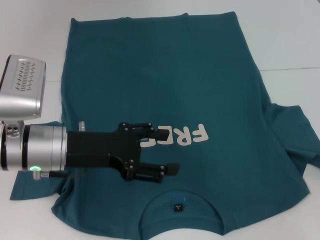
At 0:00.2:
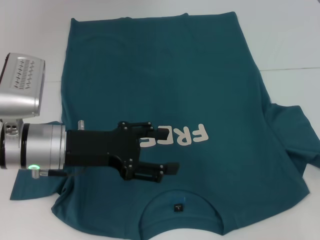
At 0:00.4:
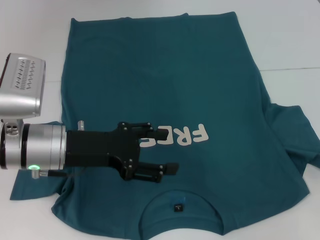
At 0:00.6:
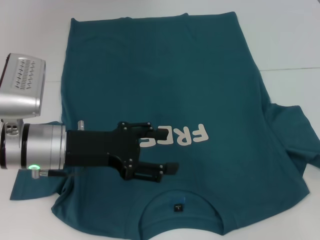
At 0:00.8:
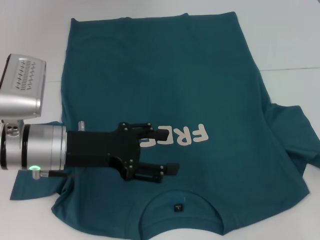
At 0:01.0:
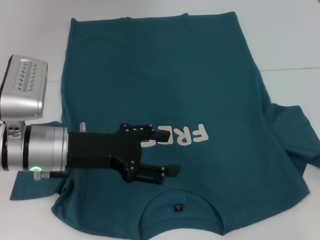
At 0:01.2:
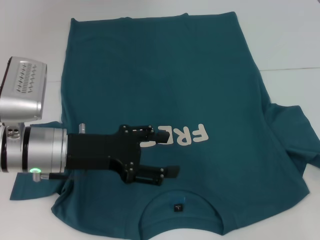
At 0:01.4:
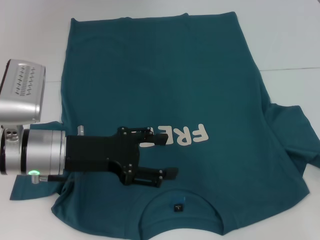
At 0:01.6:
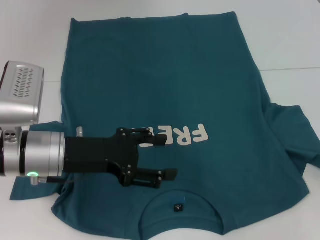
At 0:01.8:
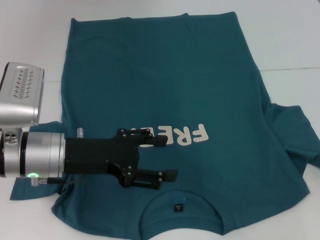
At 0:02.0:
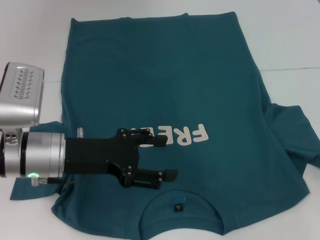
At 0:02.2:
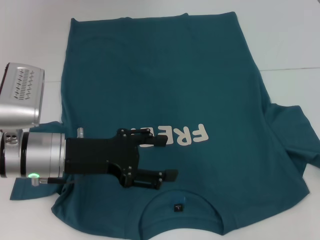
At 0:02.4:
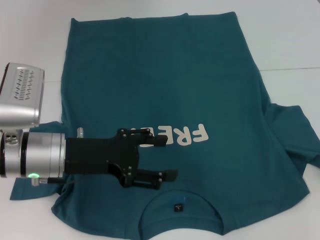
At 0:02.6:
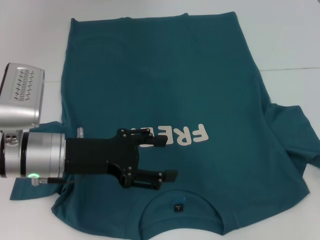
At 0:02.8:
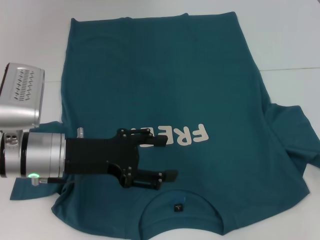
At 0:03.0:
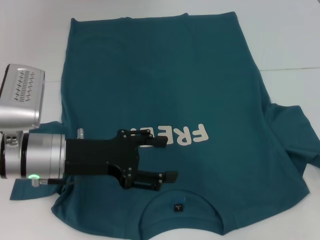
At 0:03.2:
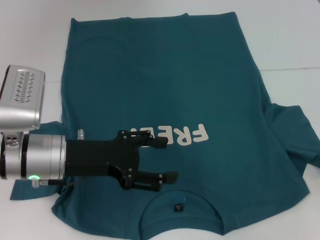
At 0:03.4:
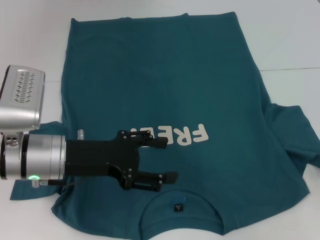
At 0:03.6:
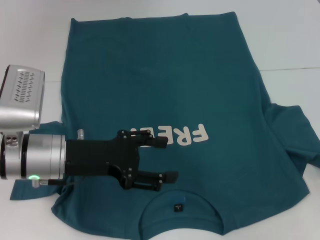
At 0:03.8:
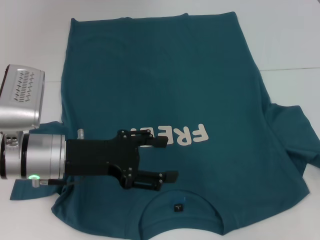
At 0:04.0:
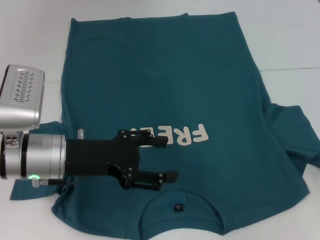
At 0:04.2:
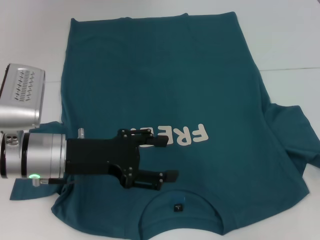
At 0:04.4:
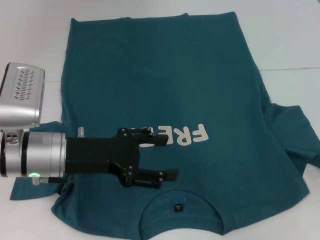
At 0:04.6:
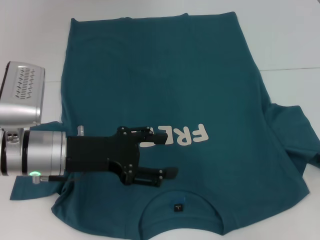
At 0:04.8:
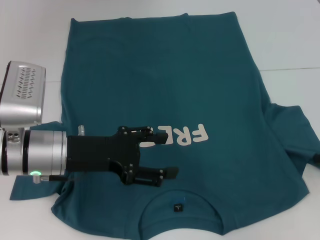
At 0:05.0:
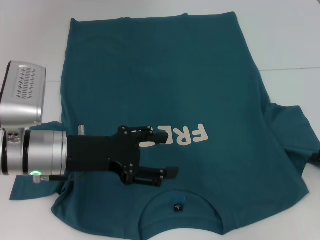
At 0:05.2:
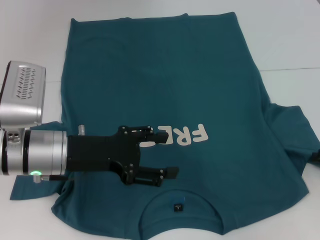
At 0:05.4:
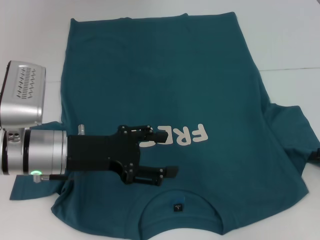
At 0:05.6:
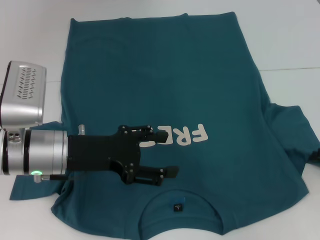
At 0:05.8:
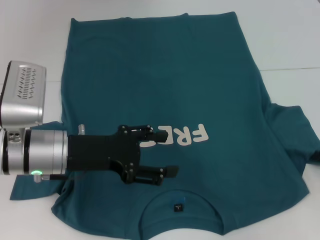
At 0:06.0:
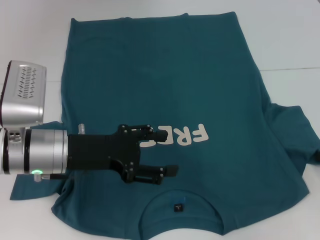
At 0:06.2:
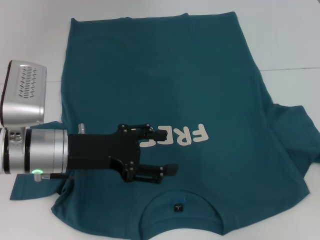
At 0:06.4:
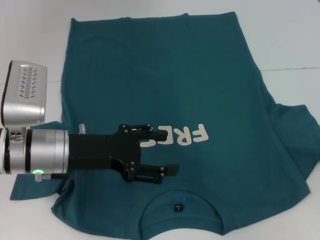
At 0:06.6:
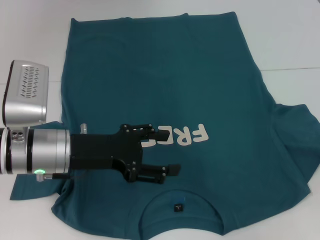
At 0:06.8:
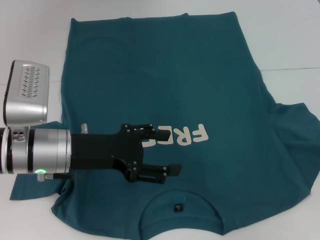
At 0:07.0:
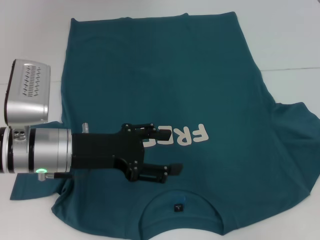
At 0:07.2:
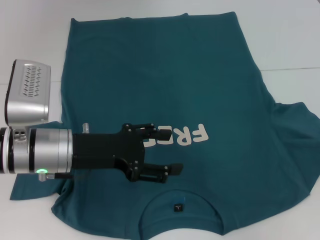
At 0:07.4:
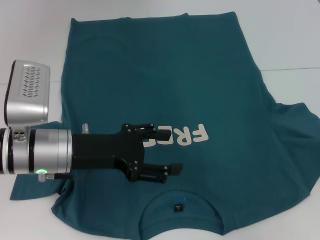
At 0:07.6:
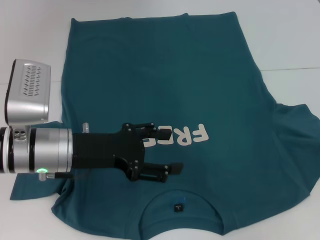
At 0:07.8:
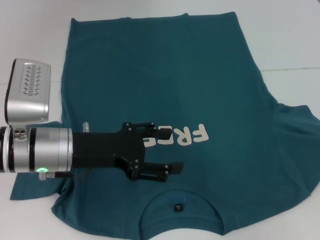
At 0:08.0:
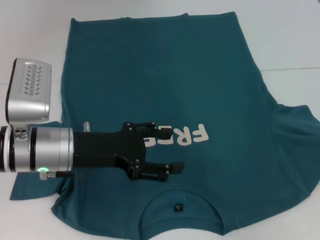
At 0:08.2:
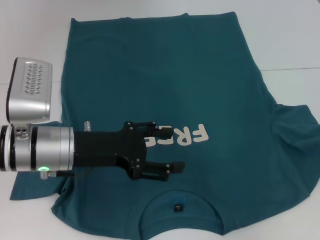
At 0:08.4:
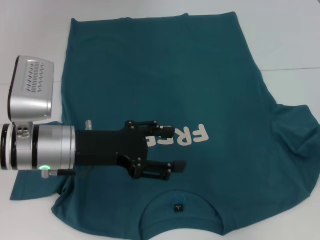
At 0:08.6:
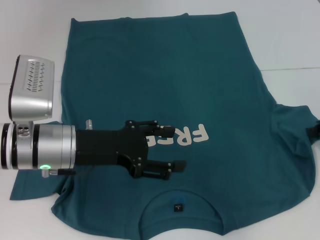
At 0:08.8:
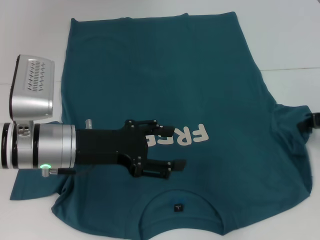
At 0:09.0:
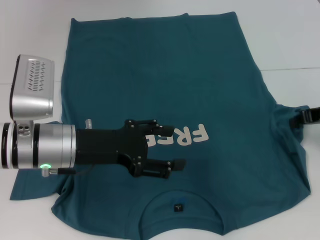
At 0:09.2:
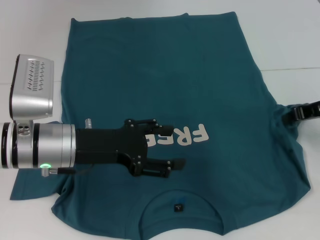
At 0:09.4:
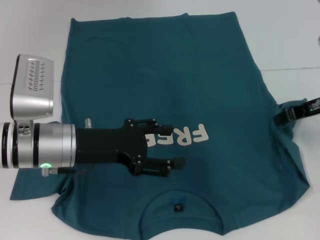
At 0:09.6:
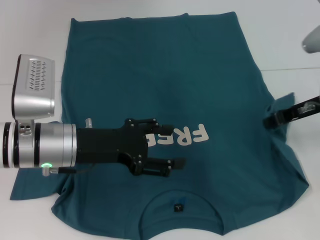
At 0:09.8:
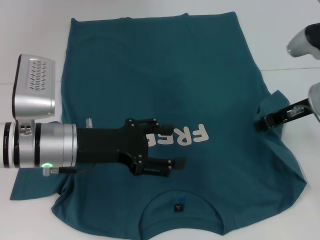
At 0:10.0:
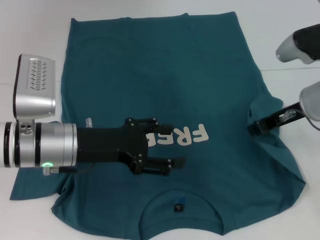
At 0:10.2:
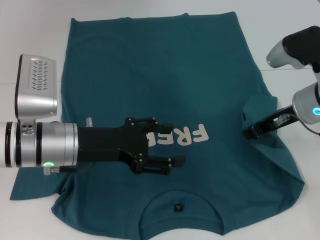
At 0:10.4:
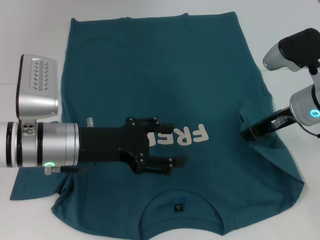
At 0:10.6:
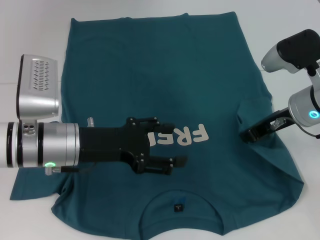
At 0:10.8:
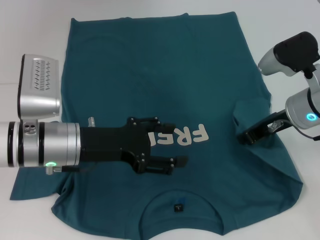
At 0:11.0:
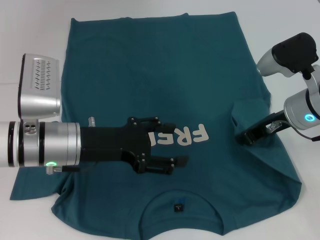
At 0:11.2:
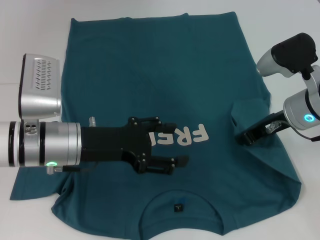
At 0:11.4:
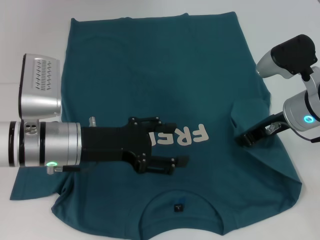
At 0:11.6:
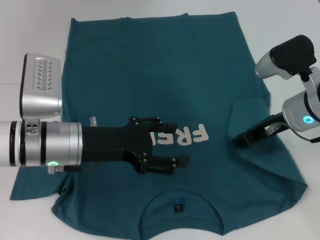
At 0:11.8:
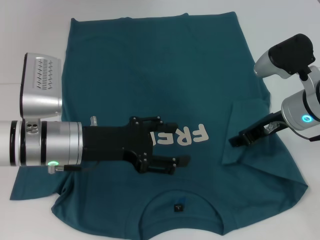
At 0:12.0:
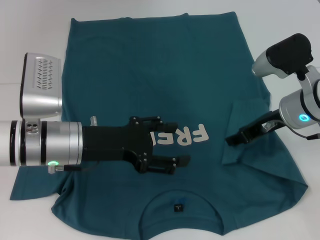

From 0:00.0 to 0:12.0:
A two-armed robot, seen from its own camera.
From 0:00.0 to 0:04.4: There are only small adjustments of the grippers.
From 0:04.4 to 0:06.0: The right gripper closes its fingers.
From 0:06.0 to 0:07.6: The right gripper closes up.
From 0:07.6 to 0:09.0: The right gripper shifts some 10 cm to the left and forward.
From 0:09.0 to 0:10.4: The right gripper goes about 10 cm to the left.
From 0:10.4 to 0:12.0: The grippers stay close to where they were, moving slightly.

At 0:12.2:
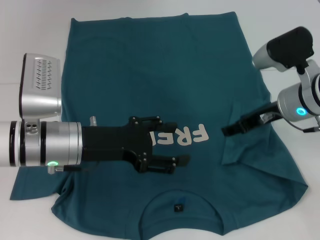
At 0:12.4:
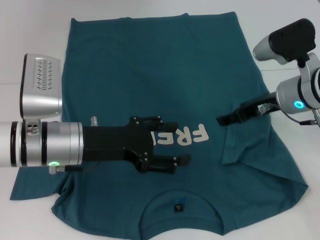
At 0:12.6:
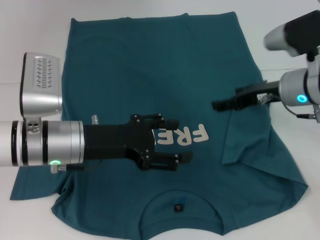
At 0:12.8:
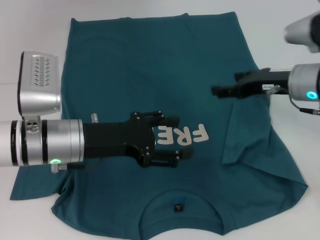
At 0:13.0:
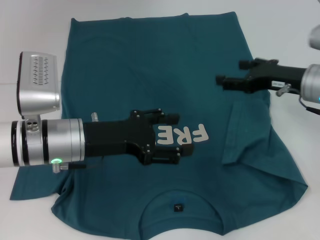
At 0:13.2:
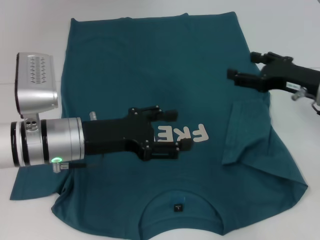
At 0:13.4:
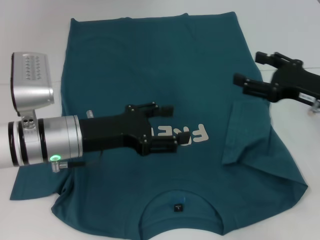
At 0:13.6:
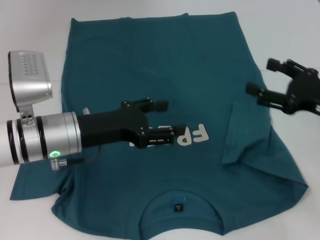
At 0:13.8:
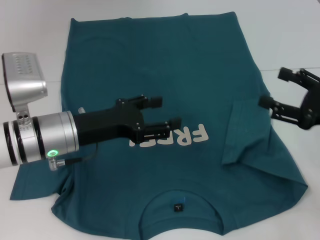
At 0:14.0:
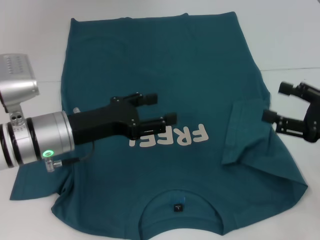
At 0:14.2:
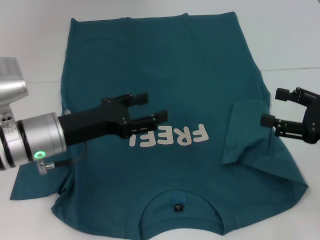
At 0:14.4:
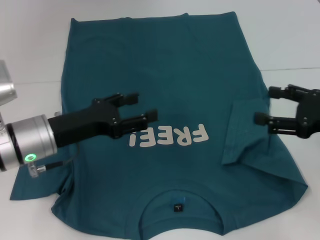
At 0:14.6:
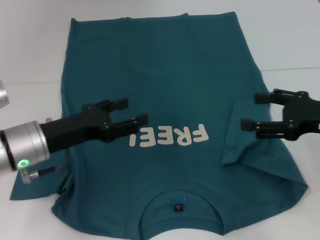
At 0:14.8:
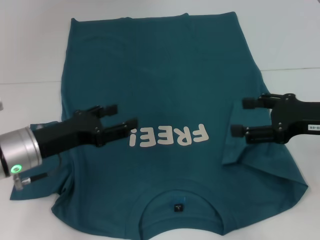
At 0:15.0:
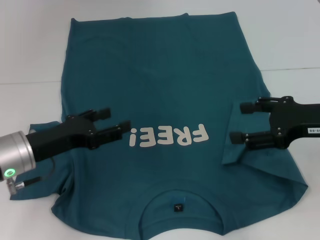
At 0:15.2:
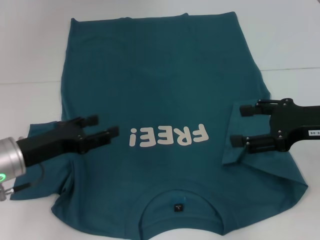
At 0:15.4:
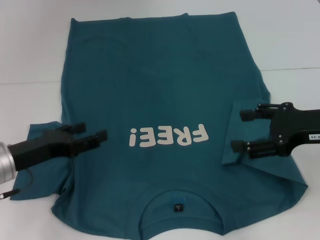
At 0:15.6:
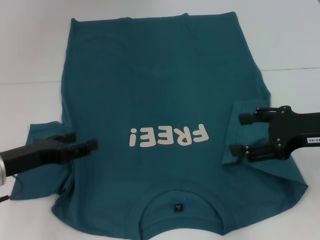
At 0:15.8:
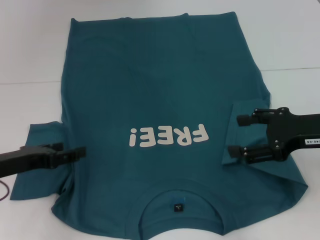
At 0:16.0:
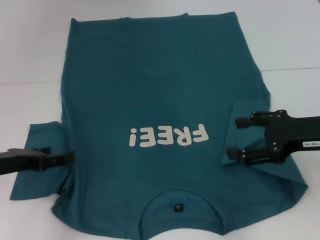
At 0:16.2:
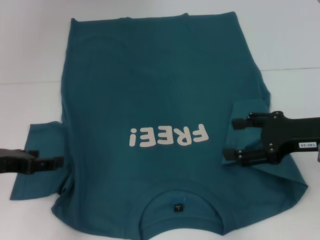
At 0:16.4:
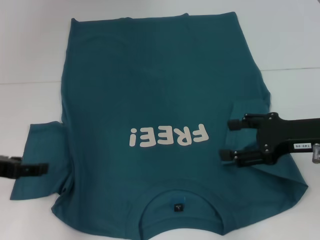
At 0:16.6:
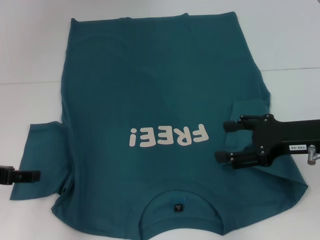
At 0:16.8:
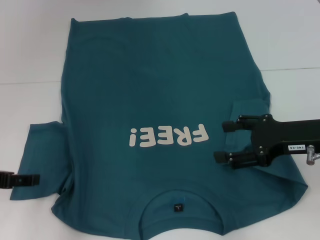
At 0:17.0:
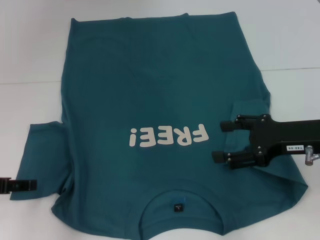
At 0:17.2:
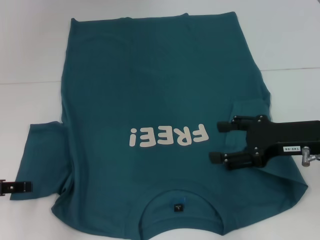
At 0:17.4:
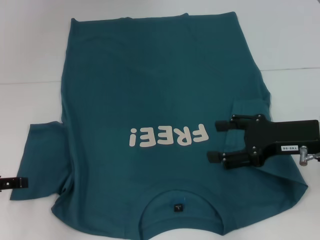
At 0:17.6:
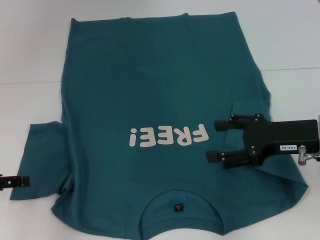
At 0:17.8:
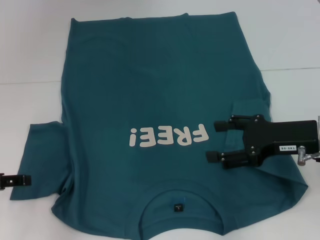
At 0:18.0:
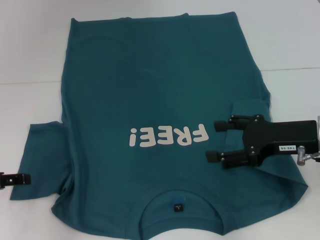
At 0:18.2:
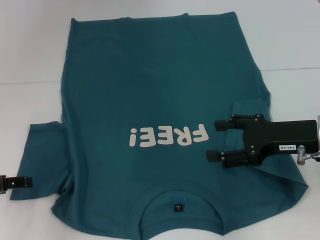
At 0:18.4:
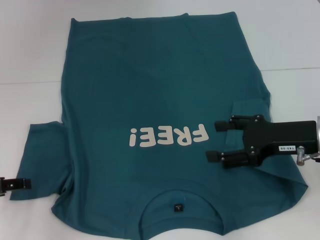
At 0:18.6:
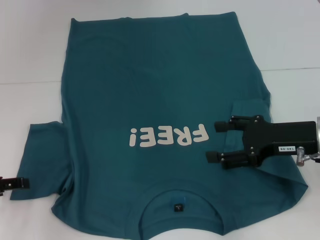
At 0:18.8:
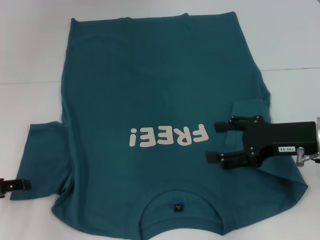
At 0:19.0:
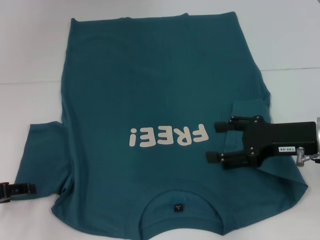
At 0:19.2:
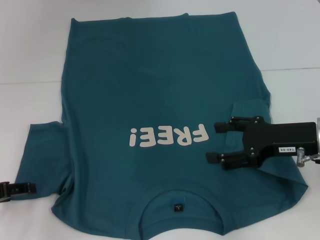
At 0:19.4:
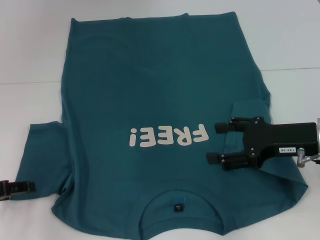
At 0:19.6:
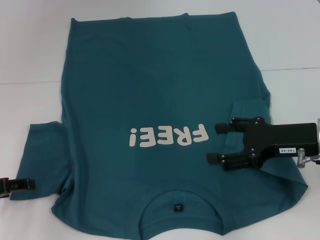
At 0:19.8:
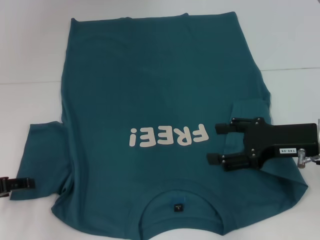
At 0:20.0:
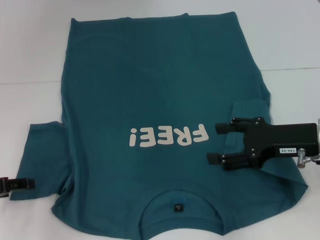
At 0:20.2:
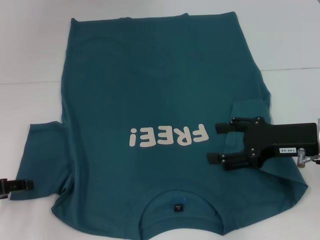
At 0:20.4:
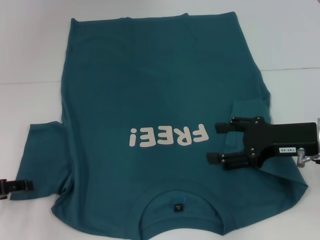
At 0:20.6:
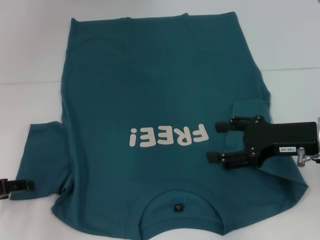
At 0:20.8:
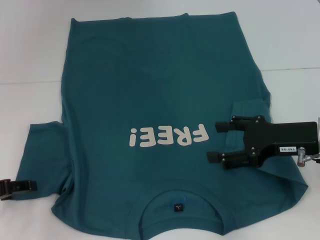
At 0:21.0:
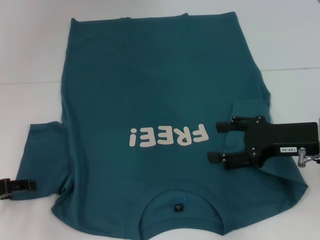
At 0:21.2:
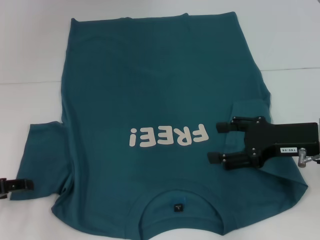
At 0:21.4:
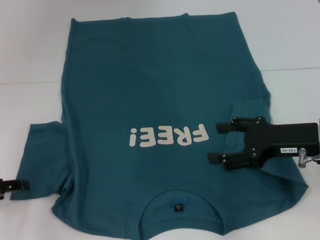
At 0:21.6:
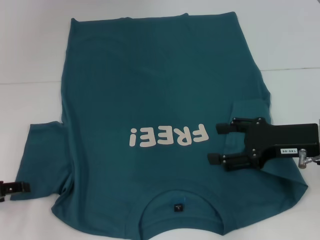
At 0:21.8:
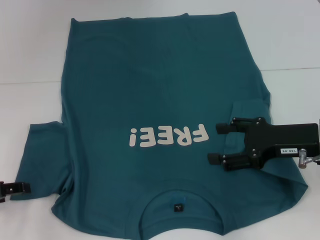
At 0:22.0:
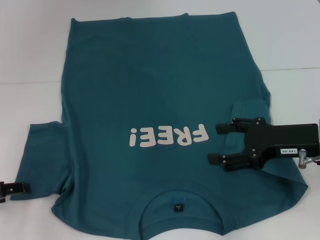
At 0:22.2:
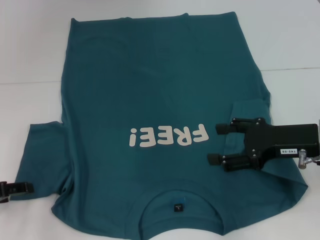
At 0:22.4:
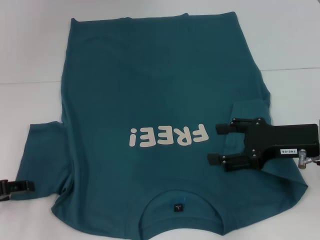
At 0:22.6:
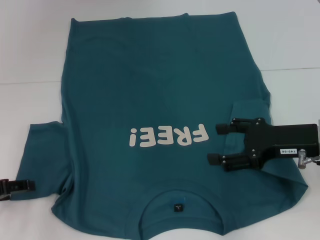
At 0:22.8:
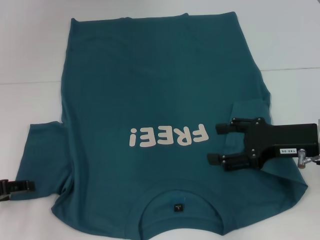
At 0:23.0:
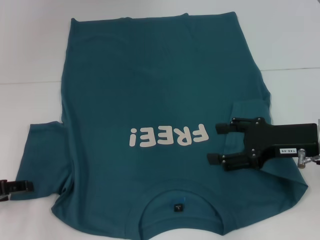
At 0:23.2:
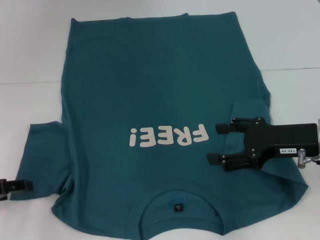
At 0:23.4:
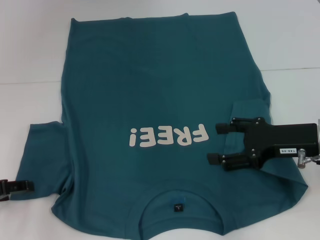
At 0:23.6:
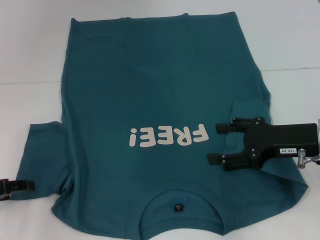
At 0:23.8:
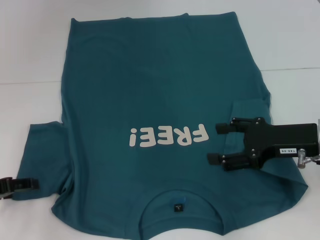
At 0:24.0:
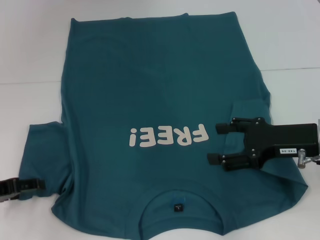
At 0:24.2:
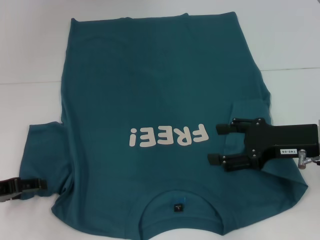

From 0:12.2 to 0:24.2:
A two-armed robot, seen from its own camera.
From 0:12.2 to 0:13.8: The right gripper travels backward and to the right by some 15 cm, and opens its fingers.
From 0:13.8 to 0:15.2: The right gripper moves approximately 5 cm; the left gripper is displaced to the left by about 5 cm.
From 0:15.2 to 0:16.6: The left gripper travels to the left by roughly 5 cm.
From 0:16.6 to 0:18.2: The grippers make only small movements.
From 0:18.2 to 0:19.8: The grippers stay close to where they were, moving slightly.
From 0:19.8 to 0:22.6: The two grippers keep their place.
